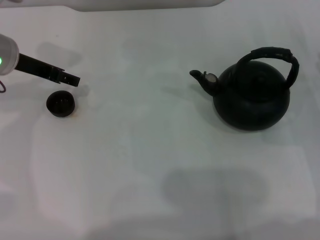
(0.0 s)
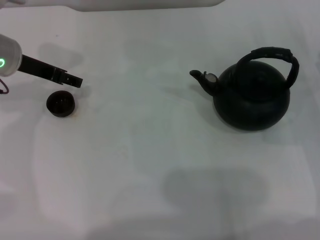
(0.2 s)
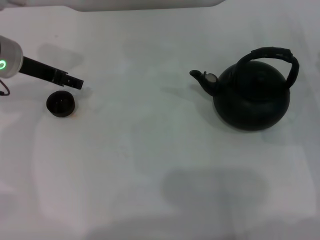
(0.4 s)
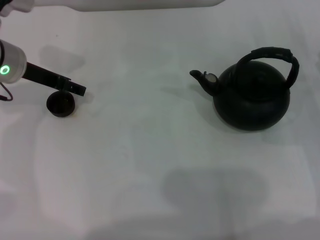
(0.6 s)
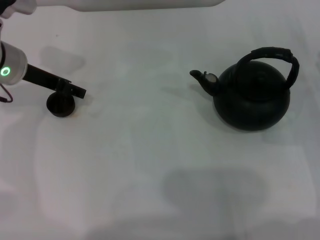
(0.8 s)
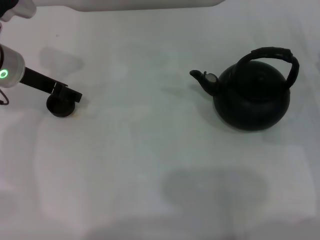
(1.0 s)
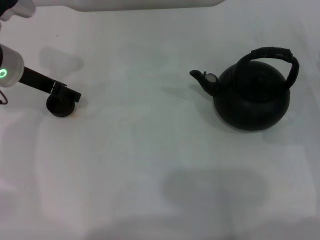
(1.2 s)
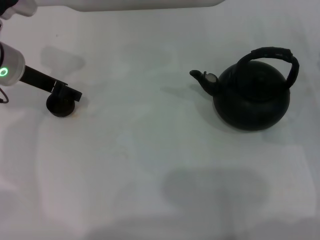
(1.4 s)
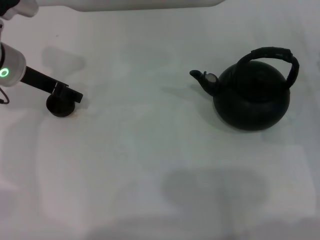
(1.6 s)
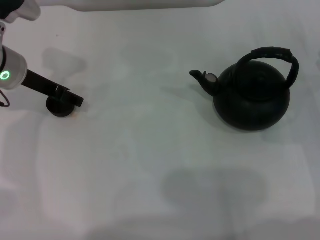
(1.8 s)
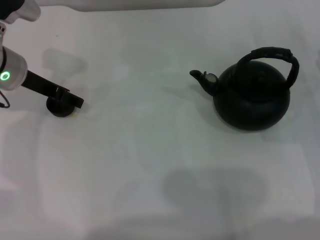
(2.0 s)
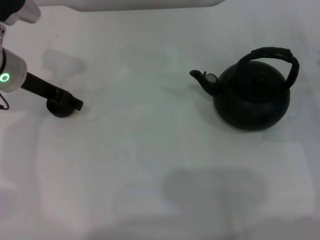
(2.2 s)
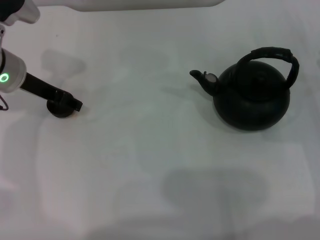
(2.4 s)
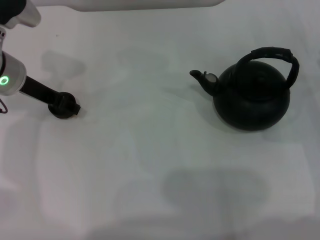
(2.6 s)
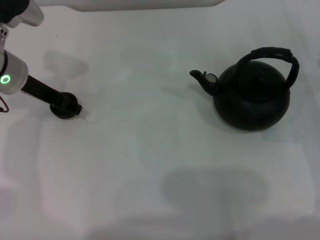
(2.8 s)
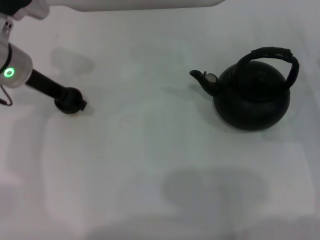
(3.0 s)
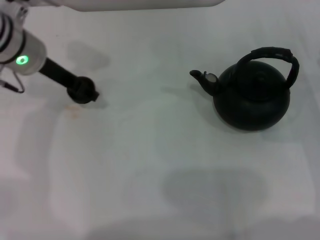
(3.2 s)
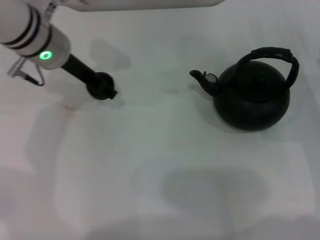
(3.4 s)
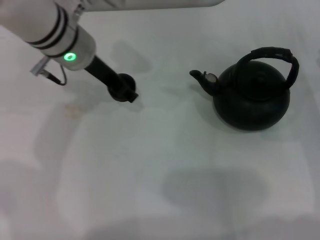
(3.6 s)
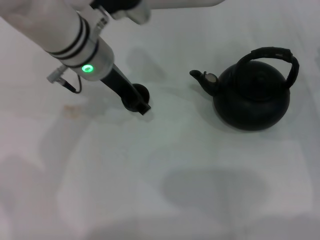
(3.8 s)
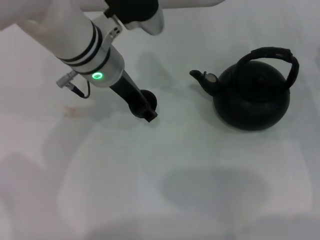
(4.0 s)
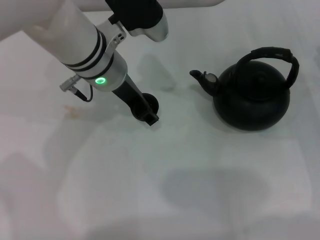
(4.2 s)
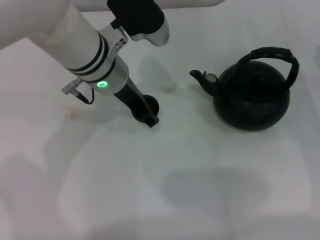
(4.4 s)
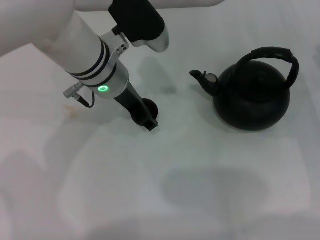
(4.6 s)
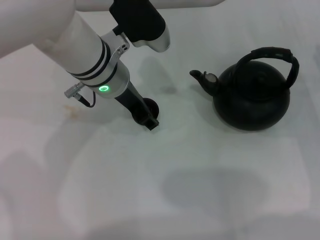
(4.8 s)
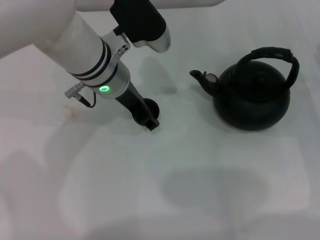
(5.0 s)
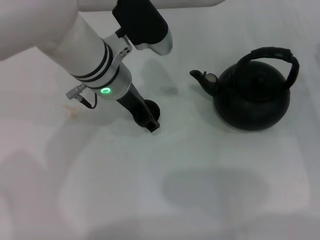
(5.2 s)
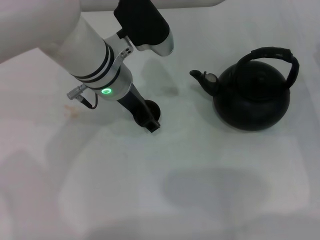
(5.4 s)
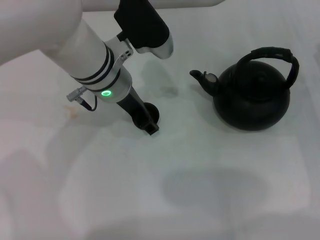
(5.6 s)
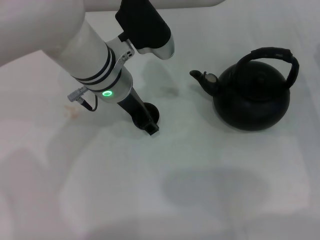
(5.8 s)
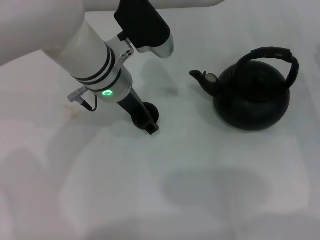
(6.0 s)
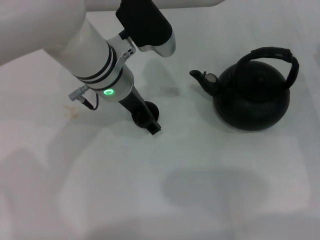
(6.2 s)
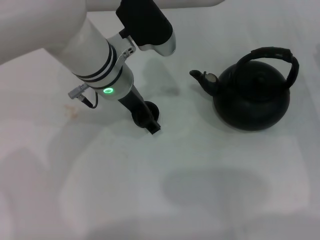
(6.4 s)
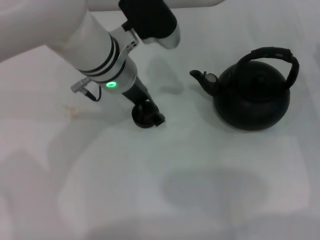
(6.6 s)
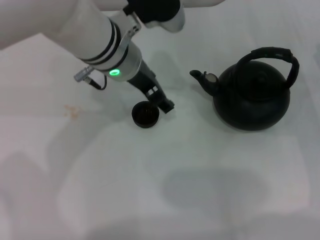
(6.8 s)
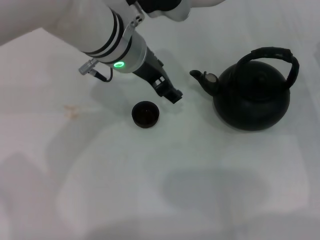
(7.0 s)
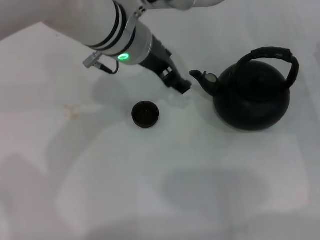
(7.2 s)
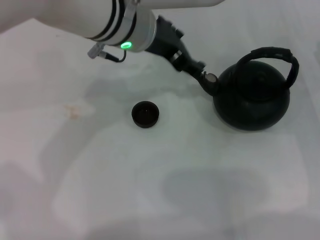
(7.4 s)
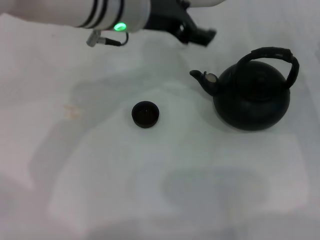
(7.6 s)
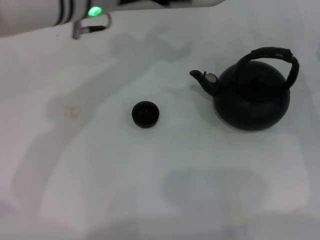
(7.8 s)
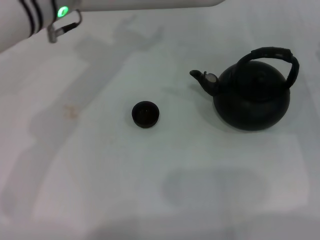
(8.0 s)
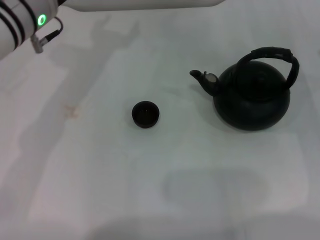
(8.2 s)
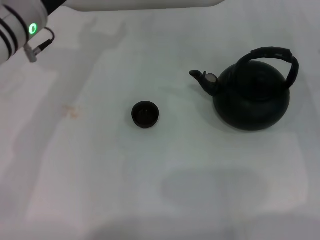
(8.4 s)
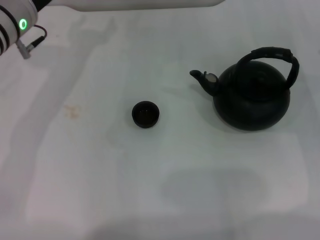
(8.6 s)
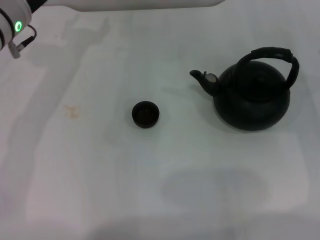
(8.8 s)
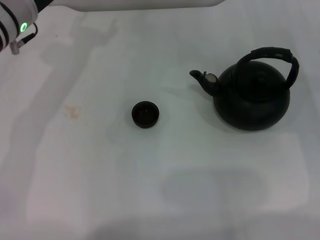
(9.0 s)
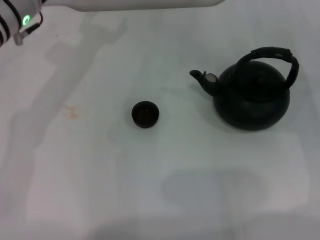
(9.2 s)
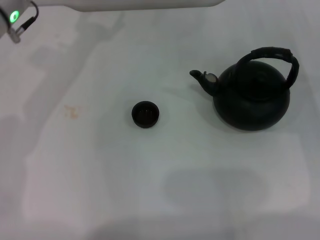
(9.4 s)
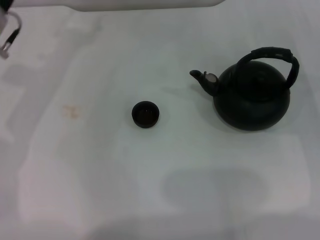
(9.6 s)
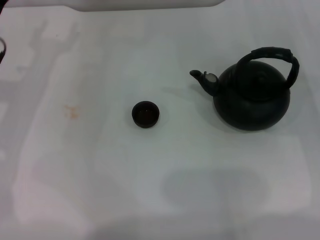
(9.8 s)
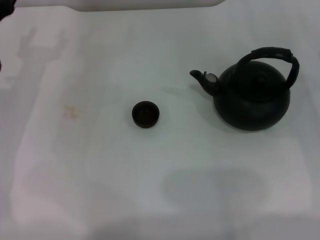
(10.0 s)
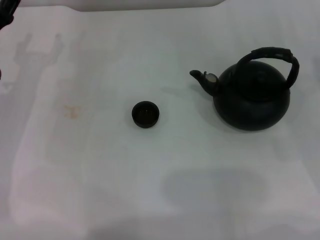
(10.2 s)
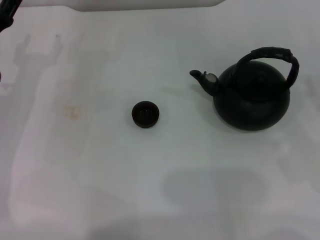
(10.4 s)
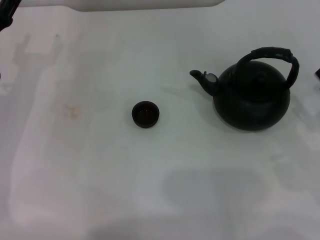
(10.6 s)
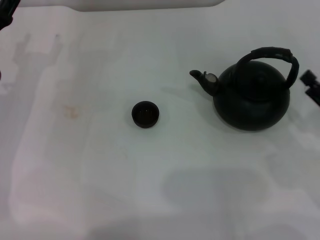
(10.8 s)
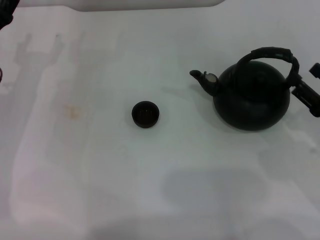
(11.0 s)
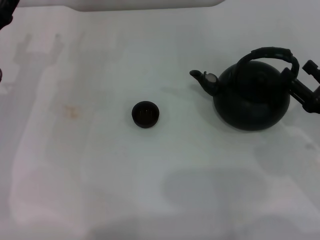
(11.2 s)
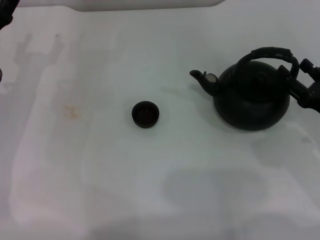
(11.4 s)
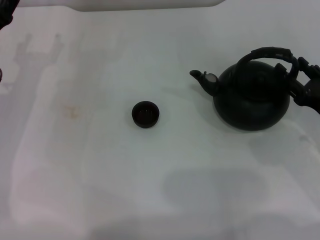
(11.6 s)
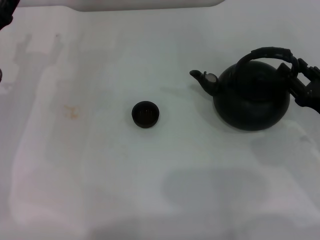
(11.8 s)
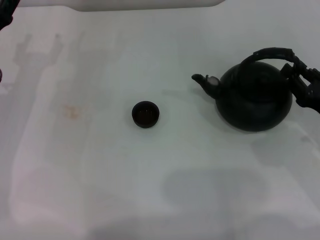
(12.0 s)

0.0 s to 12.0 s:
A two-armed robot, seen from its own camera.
Task of the whole recording: Grasp the handle of the teapot with one hand and pour tea into the teacup.
Step, 0.0 to 3.0 s: Pick up the teacup with the left gripper.
Step, 3.2 to 6.8 s: Place the teacup in the center of view with the left gripper.
0.0 to 1.6 s: The grippers make only small movements.
1.6 to 3.0 s: The left gripper closes up.
3.0 to 4.4 s: The left gripper goes some 15 cm to the right.
4.4 to 6.0 s: There are only small adjustments of the grippers.
6.0 to 7.6 s: The left gripper shifts approximately 10 cm upward, and opens up.
7.6 to 9.0 s: The left gripper is displaced to the left and downward by some 15 cm.
9.0 to 10.4 s: The left gripper travels downward, to the left and backward by roughly 15 cm.
10.4 to 12.0 s: The right gripper ends up about 5 cm from where it was.

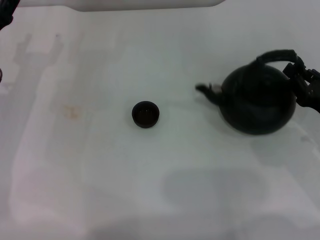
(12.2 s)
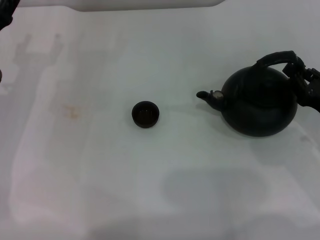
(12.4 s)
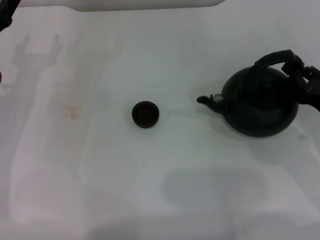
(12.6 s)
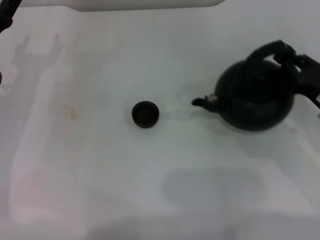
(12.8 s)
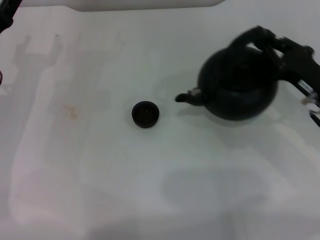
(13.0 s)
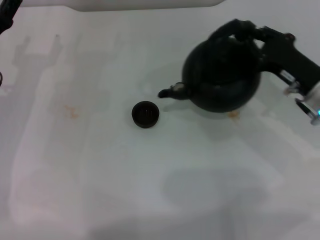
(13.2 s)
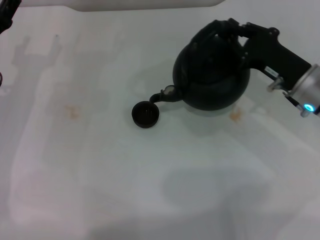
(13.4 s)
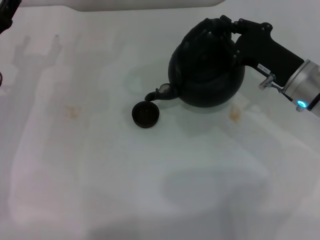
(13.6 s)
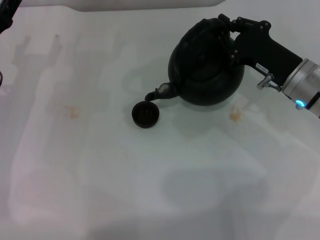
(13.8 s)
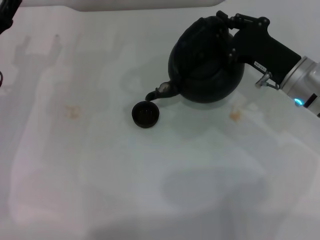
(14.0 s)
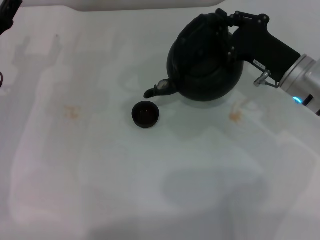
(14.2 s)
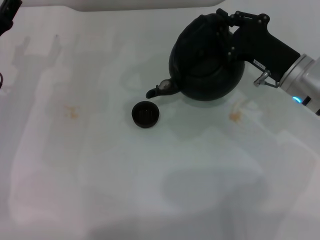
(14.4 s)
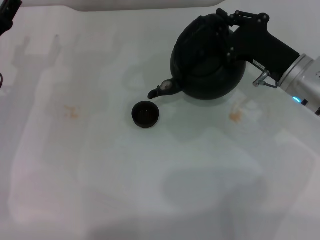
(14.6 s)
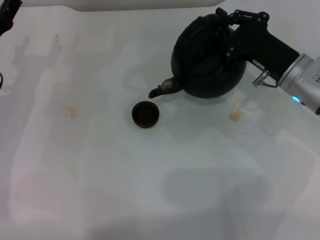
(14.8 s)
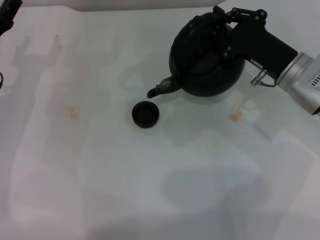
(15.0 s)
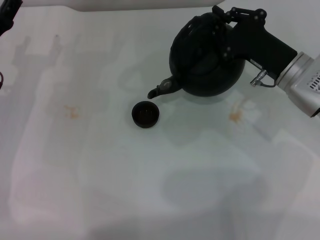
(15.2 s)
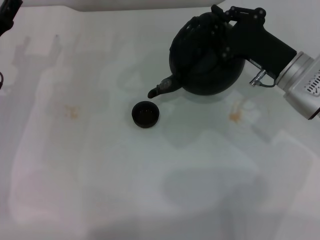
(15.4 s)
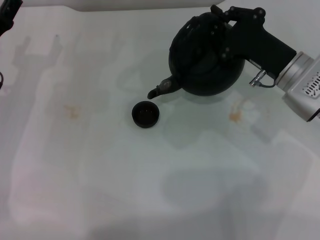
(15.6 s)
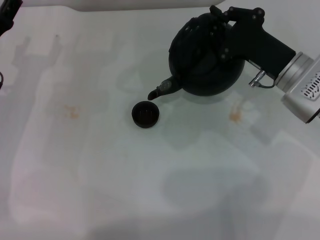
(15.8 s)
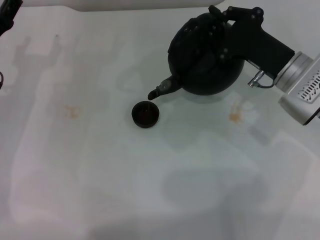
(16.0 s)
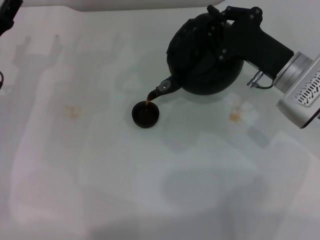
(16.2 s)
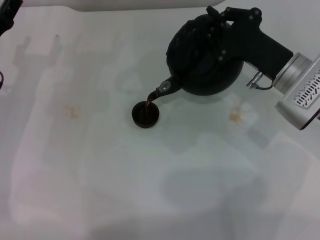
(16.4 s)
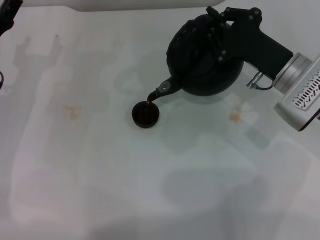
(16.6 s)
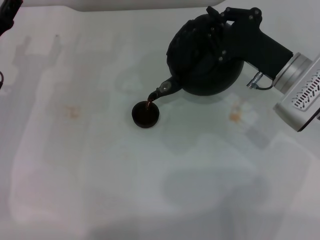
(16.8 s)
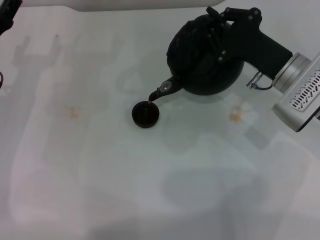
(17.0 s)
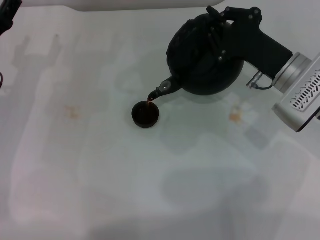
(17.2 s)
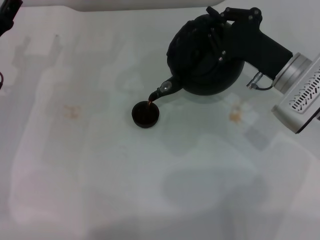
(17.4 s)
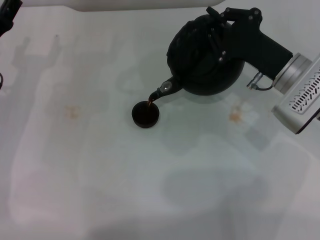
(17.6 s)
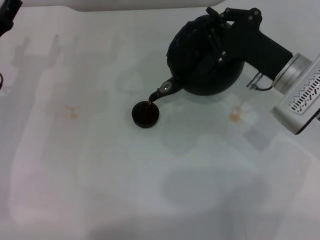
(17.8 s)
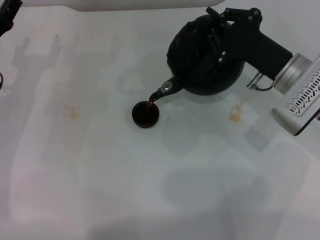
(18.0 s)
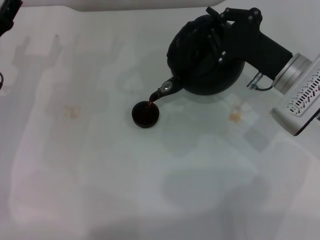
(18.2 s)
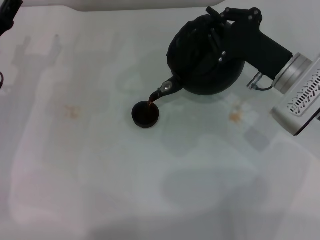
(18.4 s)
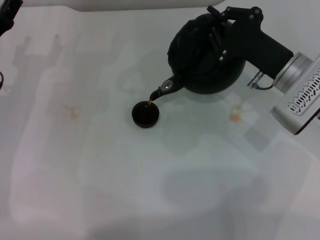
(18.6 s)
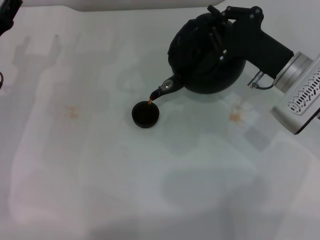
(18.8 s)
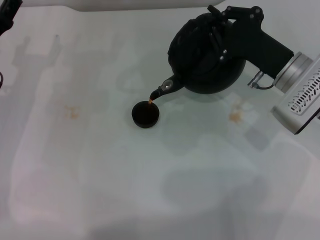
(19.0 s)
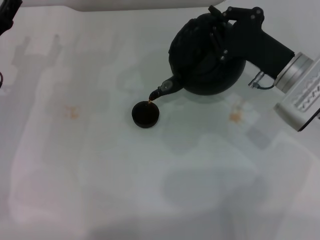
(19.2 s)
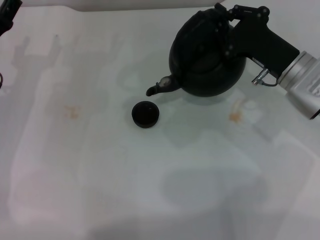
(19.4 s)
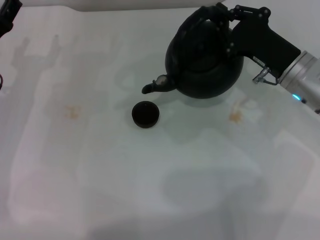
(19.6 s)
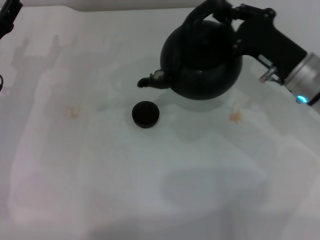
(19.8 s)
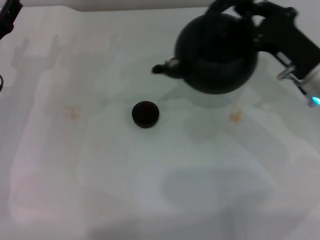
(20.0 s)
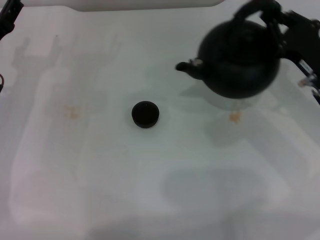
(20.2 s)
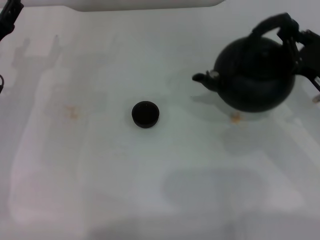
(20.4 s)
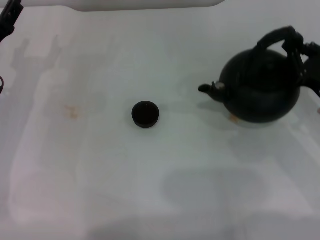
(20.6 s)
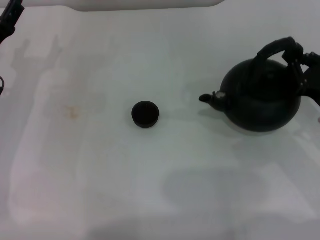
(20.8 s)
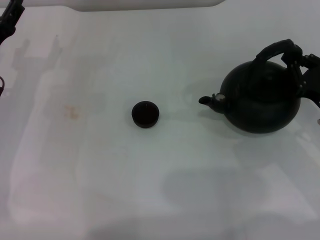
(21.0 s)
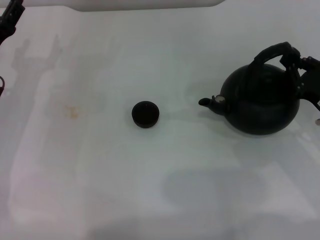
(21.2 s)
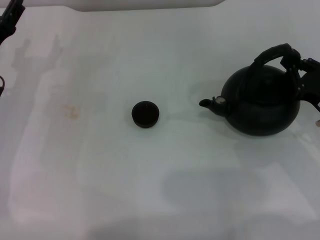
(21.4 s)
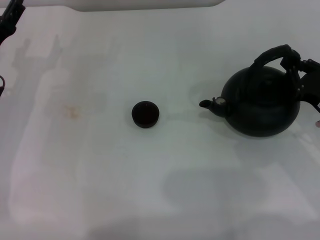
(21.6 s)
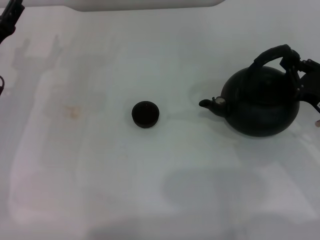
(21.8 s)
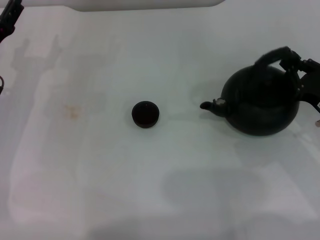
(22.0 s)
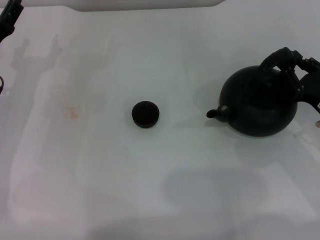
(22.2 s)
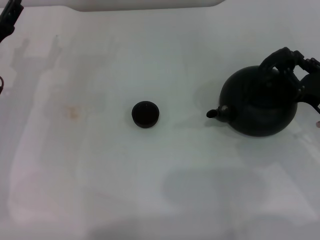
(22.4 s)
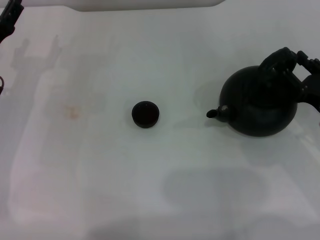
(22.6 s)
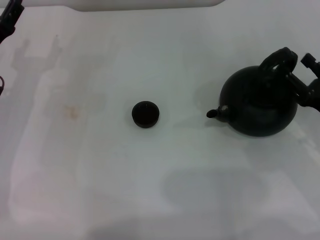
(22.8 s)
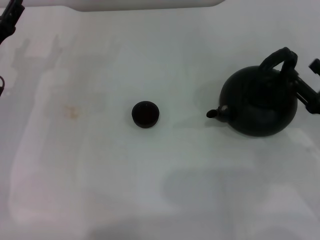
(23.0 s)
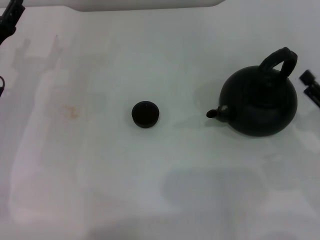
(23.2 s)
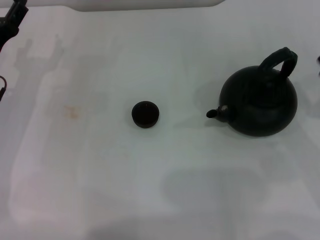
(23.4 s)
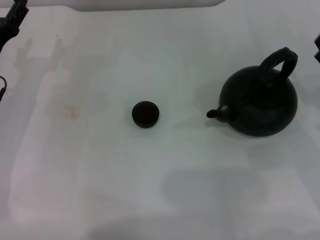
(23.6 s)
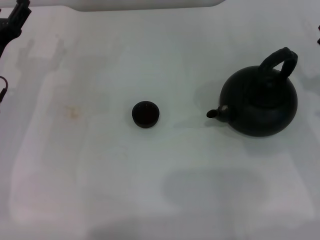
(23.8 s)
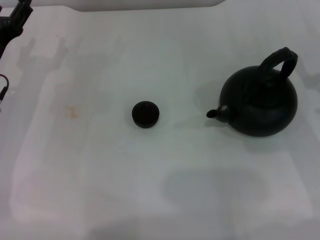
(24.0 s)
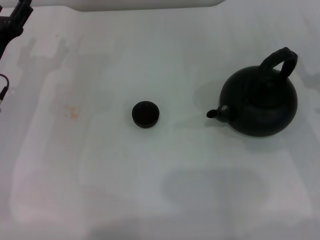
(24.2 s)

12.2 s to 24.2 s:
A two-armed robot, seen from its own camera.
Task of the whole recording: Grasp the handle of the teapot with one hand and pour tea into the teacup.
Step, 13.0 to 19.6 s: Pour tea into the teacup with the right gripper.
Step, 19.8 to 23.0 s: Put down the teapot with the right gripper.
12.2 to 13.8 s: The right gripper is displaced to the left and forward by about 10 cm.
13.8 to 15.2 s: There are only small adjustments of the grippers.
15.2 to 16.6 s: The grippers move only a little.
16.6 to 18.2 s: Both grippers stay put.
19.8 to 21.2 s: The right gripper heads to the right and backward, covering approximately 10 cm.
21.2 to 22.6 s: The right gripper opens its fingers.
22.6 to 24.2 s: The right gripper opens up.
